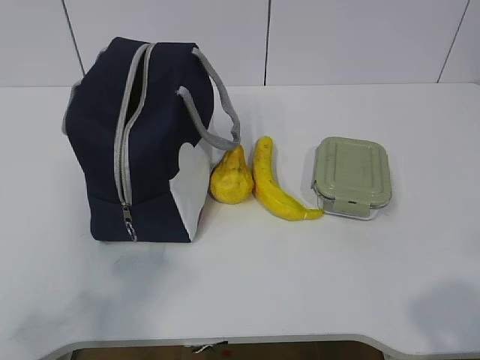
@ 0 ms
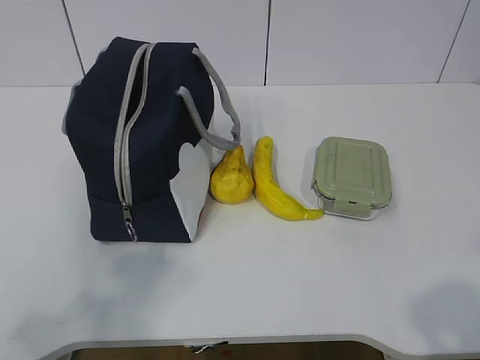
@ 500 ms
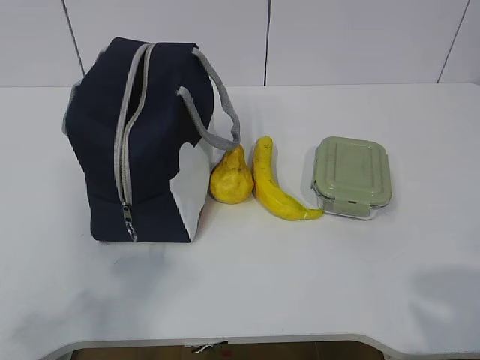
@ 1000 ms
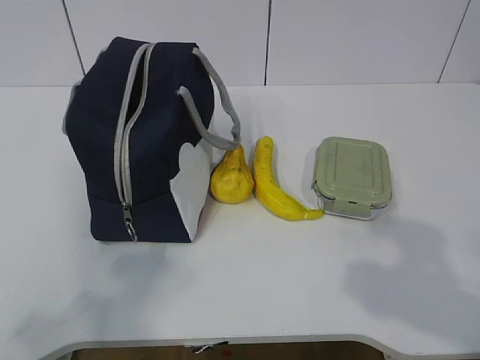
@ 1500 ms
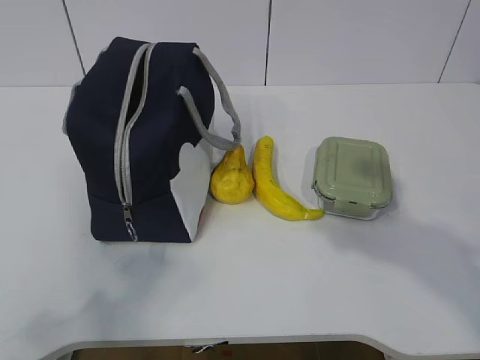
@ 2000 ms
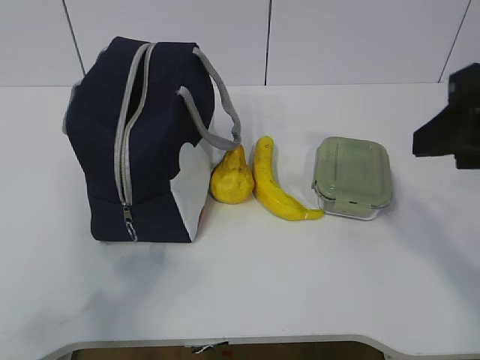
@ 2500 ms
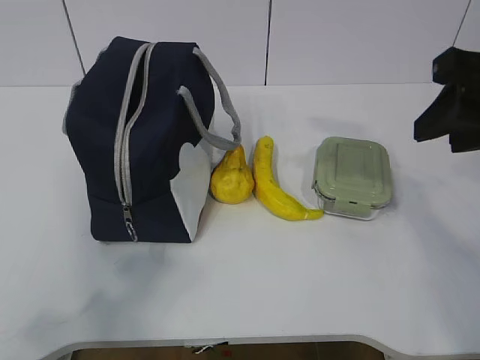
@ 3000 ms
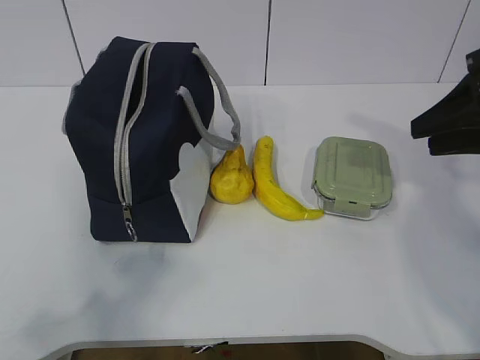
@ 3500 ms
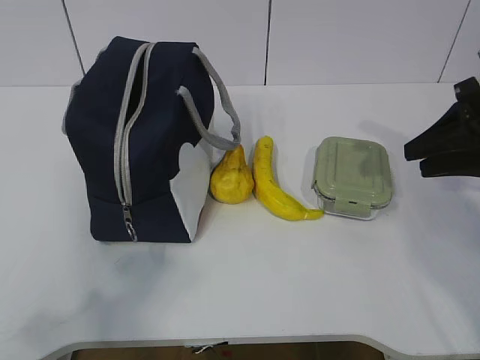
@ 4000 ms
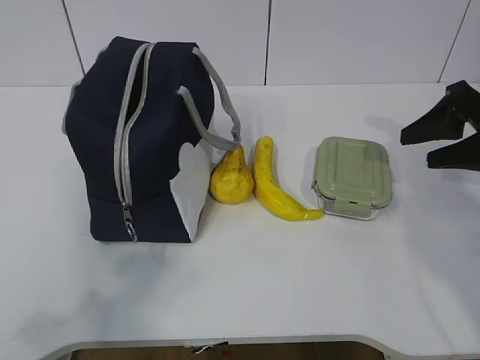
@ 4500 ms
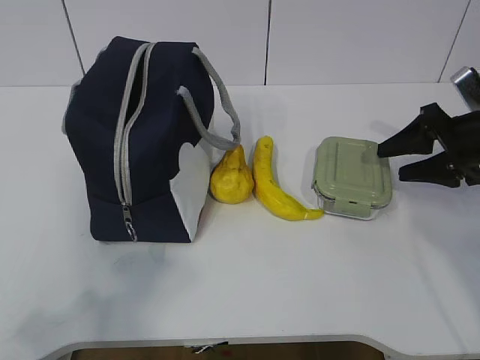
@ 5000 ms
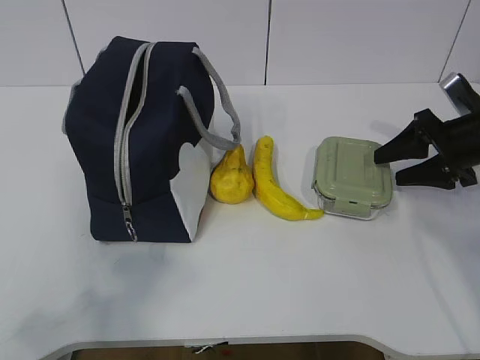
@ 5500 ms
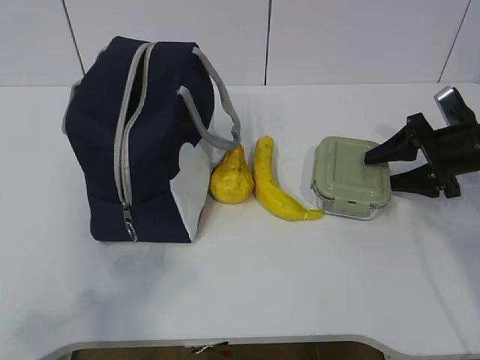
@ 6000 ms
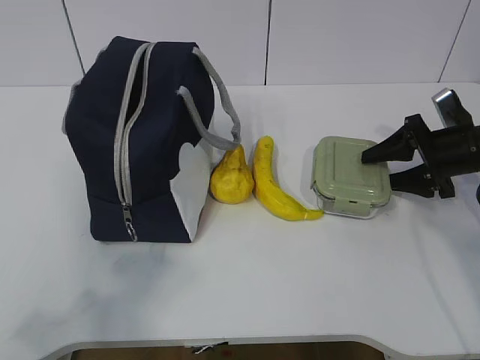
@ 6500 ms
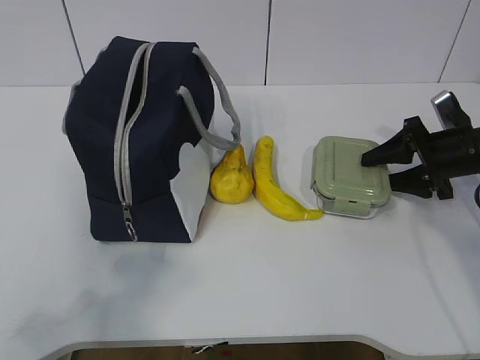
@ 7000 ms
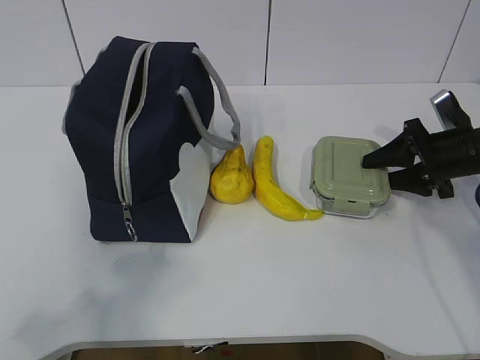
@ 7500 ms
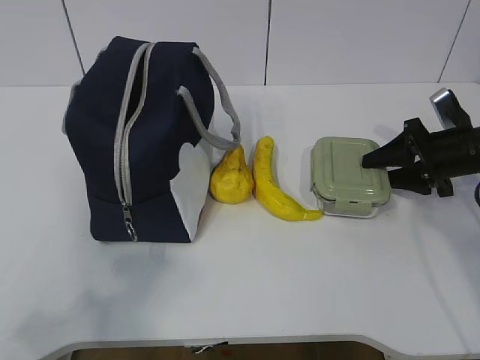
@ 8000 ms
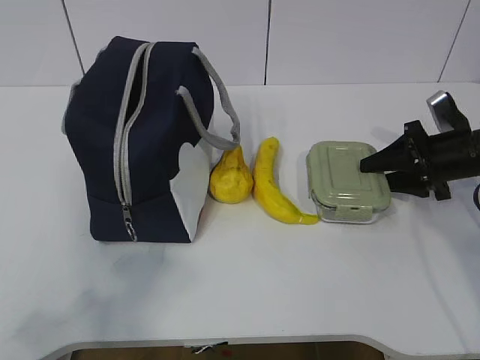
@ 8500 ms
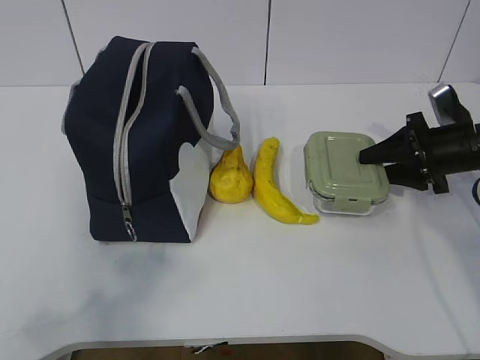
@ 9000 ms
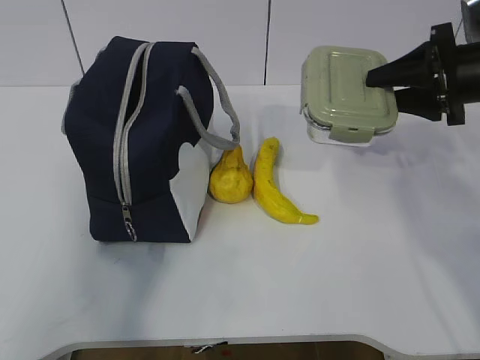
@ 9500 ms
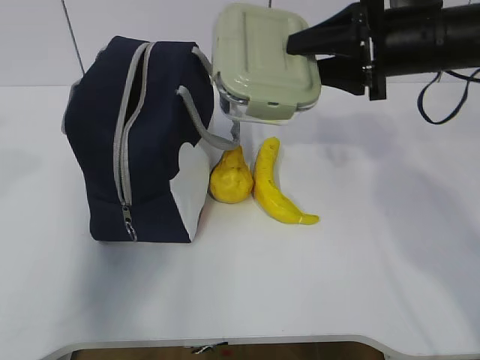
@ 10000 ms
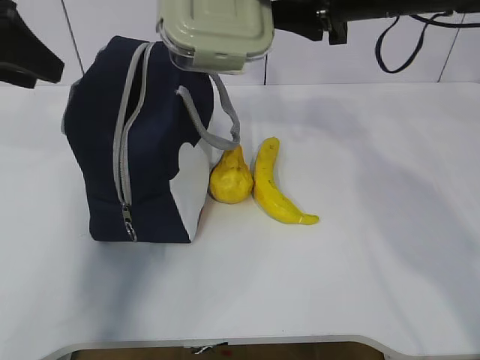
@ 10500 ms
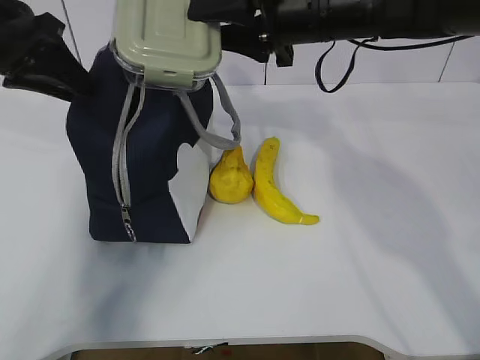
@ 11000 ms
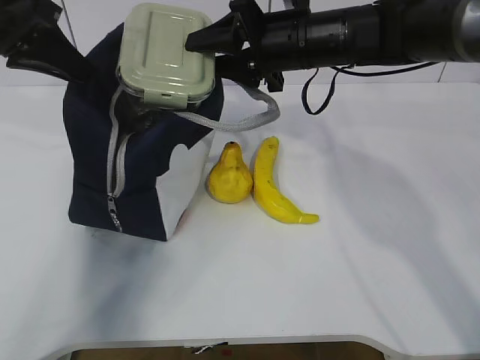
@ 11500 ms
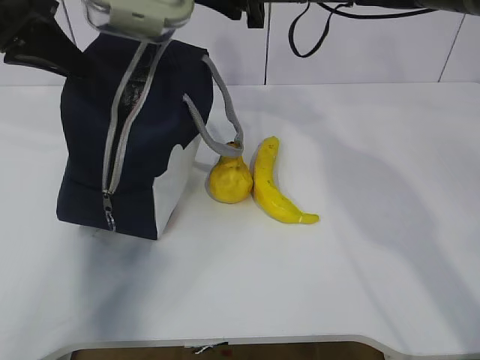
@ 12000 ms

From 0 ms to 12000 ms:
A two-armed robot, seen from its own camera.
Step, from 0 ms to 8000 ms: Grasp the box with the right gripper.
From 2000 ms to 4000 ms: The right gripper travels forward by approximately 20 cm.
From 4000 ms to 6000 ms: The right gripper travels downward and forward by some 15 cm, and opens up.
From 6000 ms to 8000 ms: Both grippers stay about where they are.
From 8000 ms to 10000 ms: The right gripper moves upward and to the left, about 20 cm, while the left gripper travels forward and upward by some 20 cm.
From 10000 ms to 12000 ms: The right gripper shifts roughly 15 cm to the left, forward and upward; the left gripper is displaced forward by about 20 cm, and closes up.

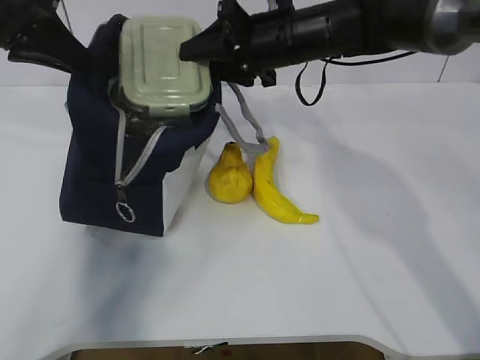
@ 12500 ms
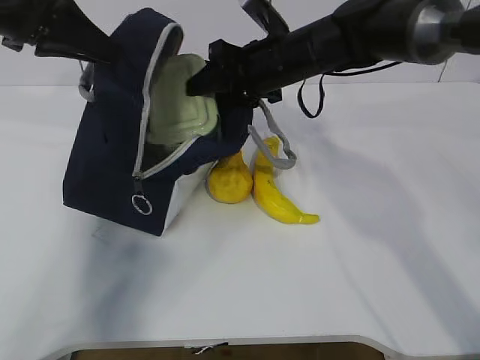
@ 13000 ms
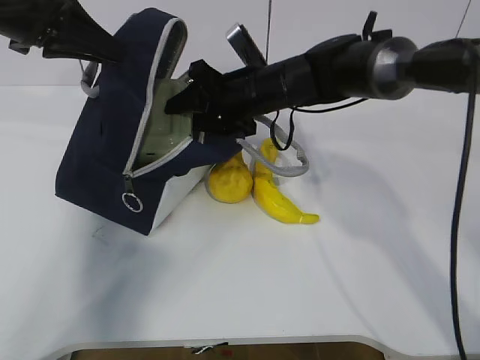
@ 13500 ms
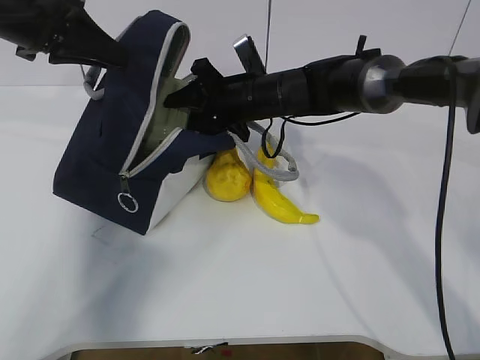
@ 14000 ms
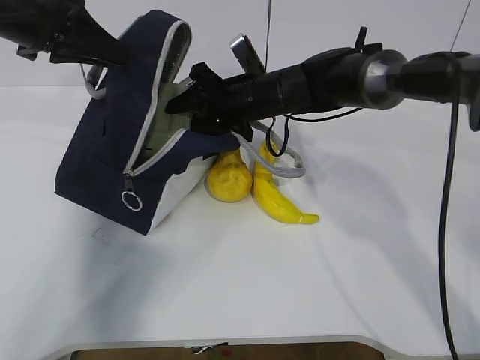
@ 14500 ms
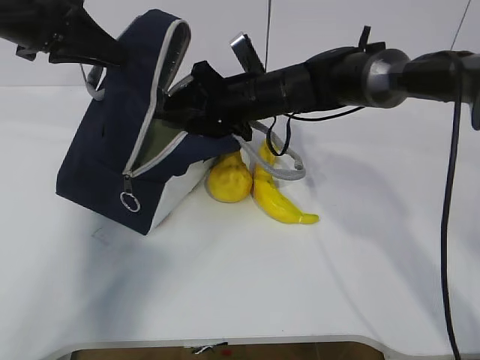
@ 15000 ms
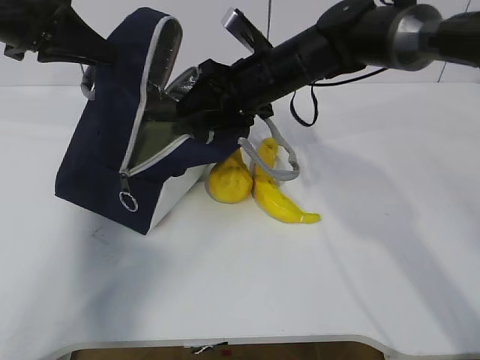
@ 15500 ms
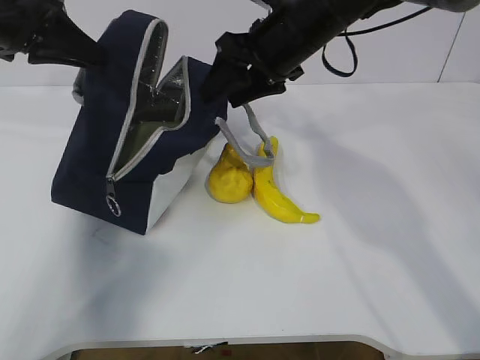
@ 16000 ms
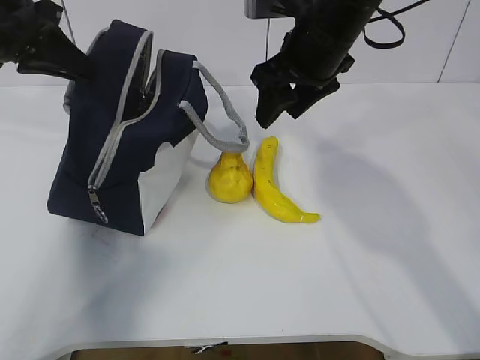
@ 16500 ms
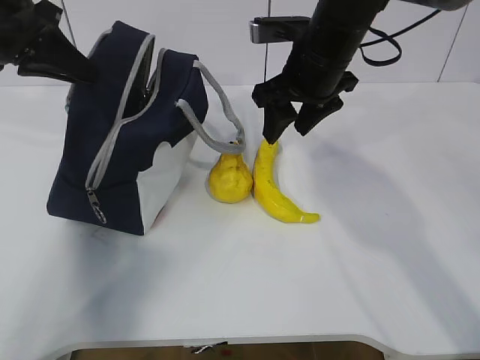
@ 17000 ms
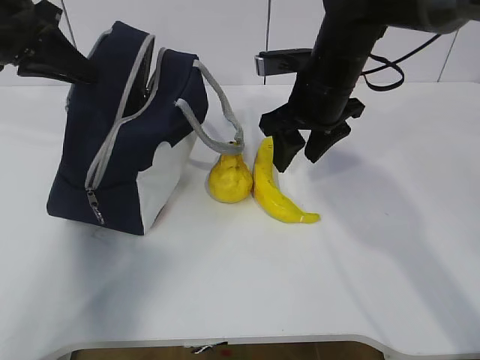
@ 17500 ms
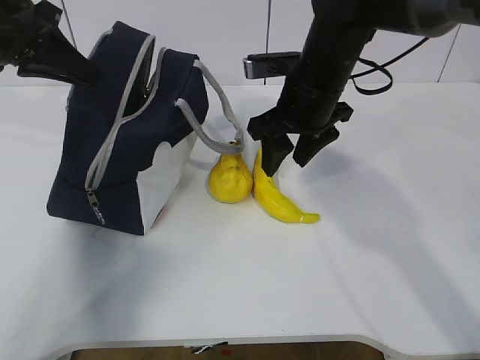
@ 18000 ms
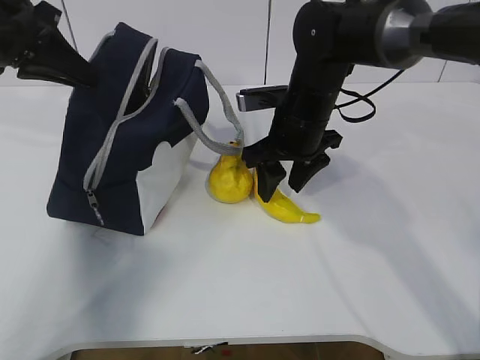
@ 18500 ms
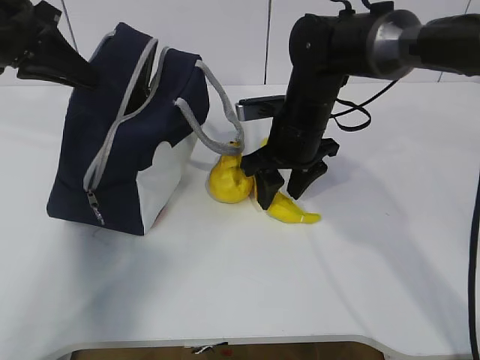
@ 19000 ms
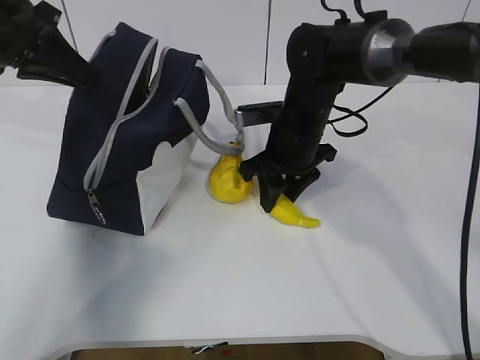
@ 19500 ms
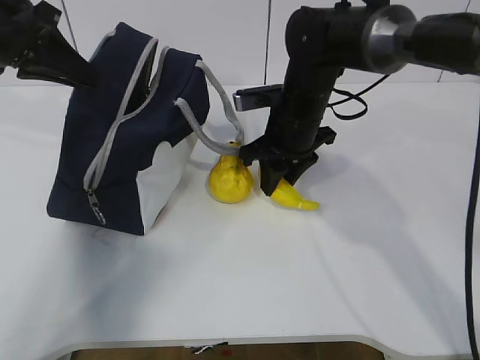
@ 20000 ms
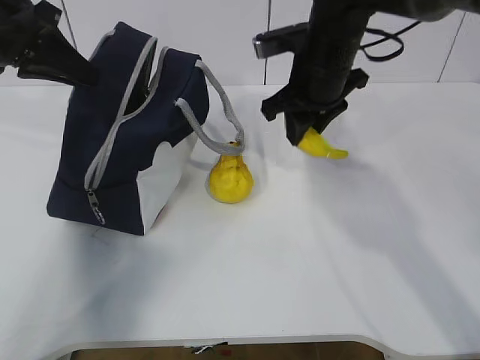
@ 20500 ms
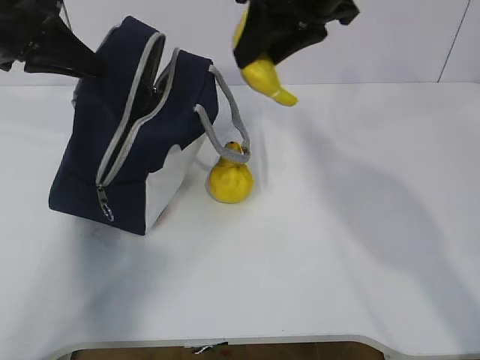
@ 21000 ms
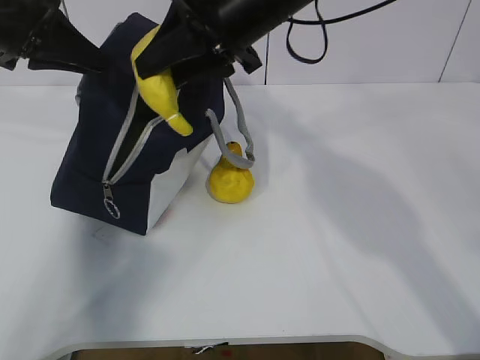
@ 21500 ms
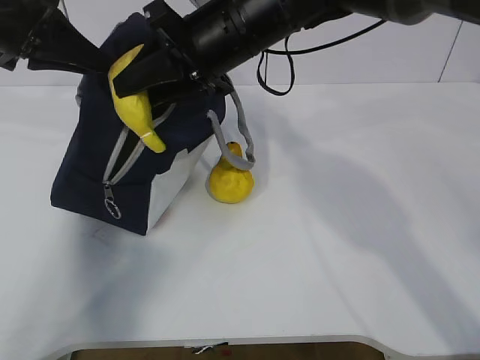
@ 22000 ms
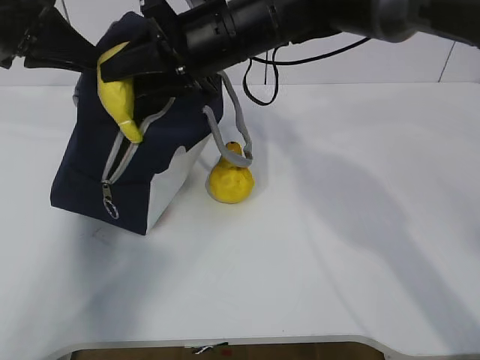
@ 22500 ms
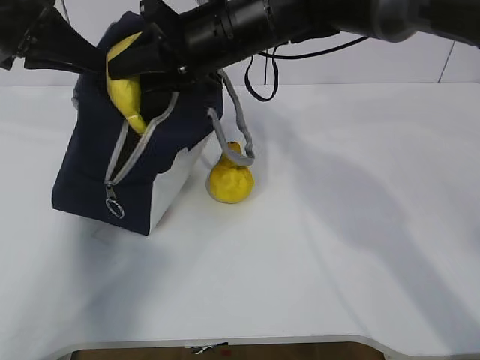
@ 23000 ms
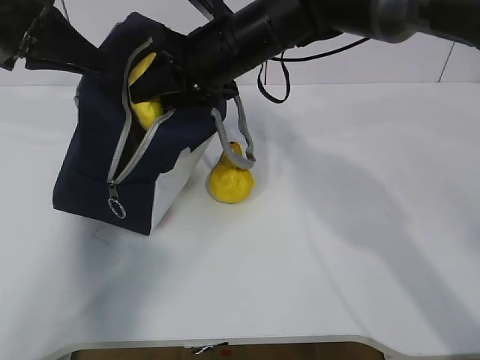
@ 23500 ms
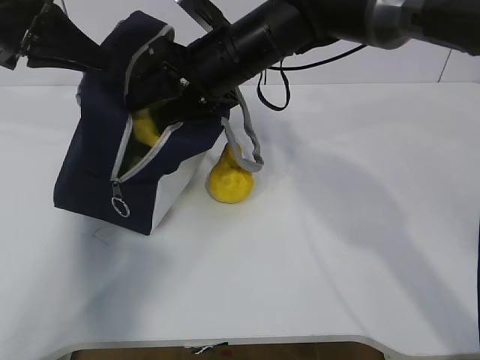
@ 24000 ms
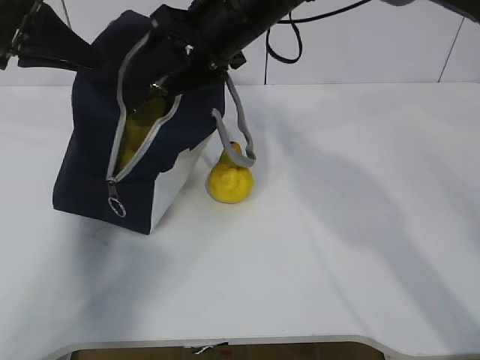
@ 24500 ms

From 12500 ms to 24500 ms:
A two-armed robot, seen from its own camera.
Step, from 12500 ms to 16000 ms: Place the box into the package with the right gripper.
Step, from 16500 ms to 19500 ms: Grasp the banana with the right gripper.
From 12500 ms to 14500 ms: The right gripper is displaced downward by about 10 cm.
From 14500 ms to 16500 ms: The right gripper heads upward, to the right and backward, covering some 15 cm.
From 16500 ms to 18500 ms: The right gripper moves downward, about 10 cm.
From 18500 ms to 20500 ms: The right gripper is displaced upward by approximately 5 cm, and closes.
From 20500 ms to 22500 ms: The right gripper travels to the left by roughly 10 cm.
From 22500 ms to 24500 ms: The right gripper opens up.

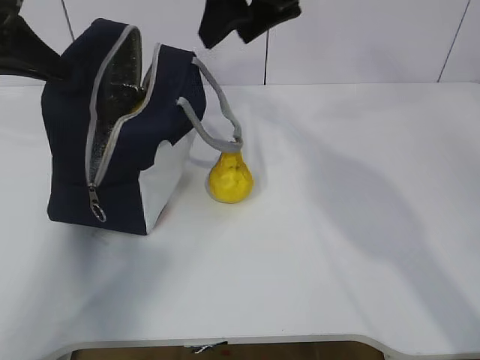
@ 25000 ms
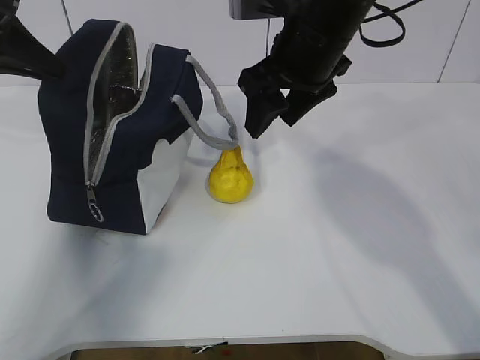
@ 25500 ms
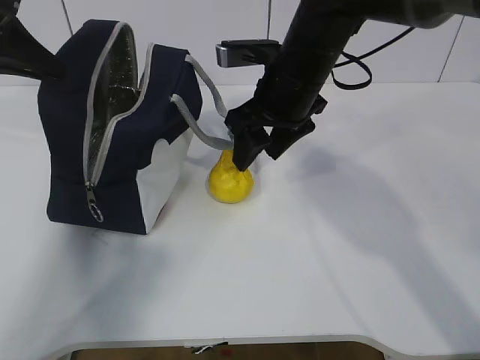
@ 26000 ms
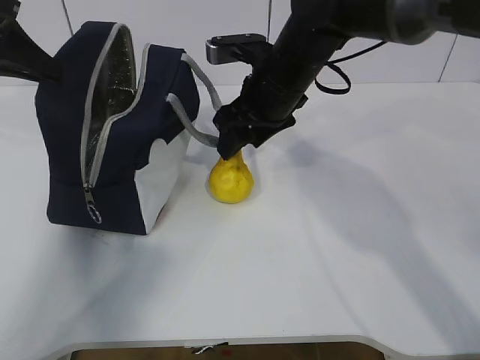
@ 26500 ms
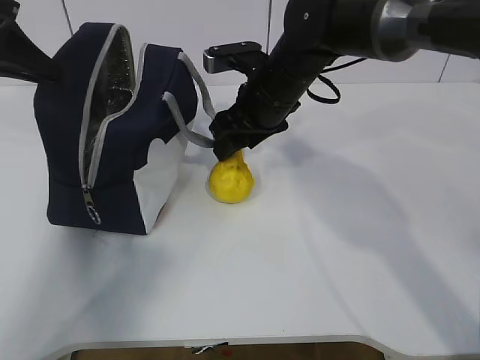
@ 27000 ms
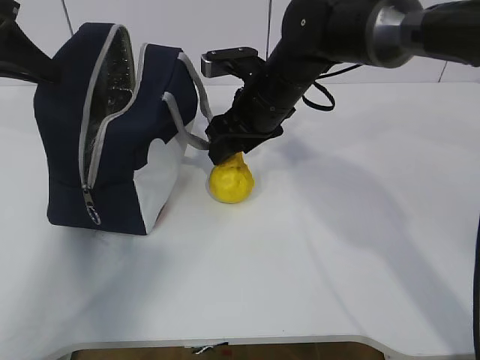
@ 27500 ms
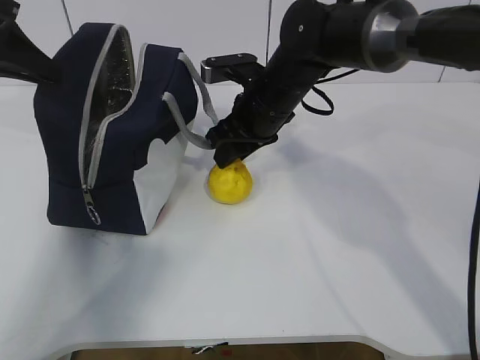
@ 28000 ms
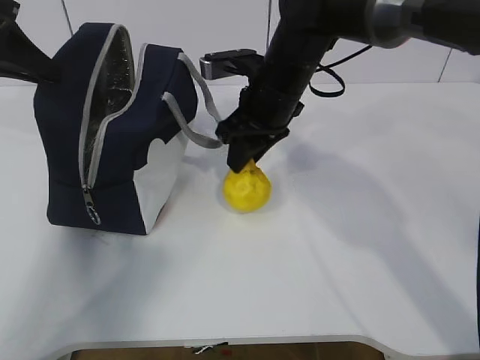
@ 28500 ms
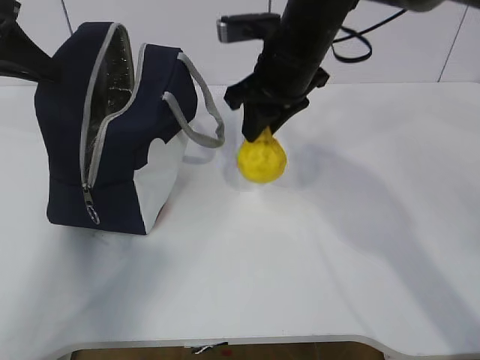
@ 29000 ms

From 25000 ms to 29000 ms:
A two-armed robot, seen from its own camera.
Step, from 25000 ms to 28000 ms: Grasp the pear with the right gripper.
From 25000 ms to 27000 ms: The right gripper shifts roughly 15 cm downward.
From 27000 ms to 29000 ms: The right gripper changes place by approximately 5 cm, and closes its fingers.
